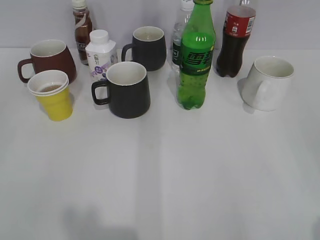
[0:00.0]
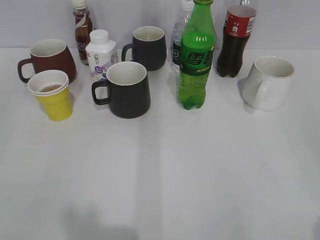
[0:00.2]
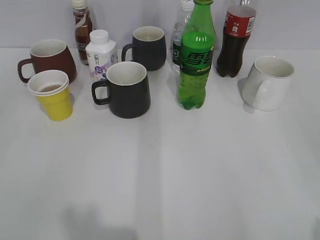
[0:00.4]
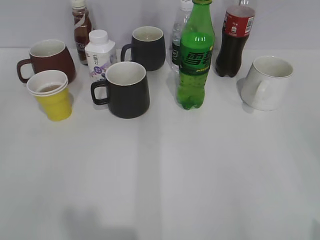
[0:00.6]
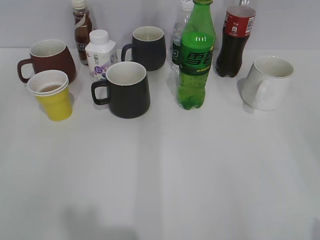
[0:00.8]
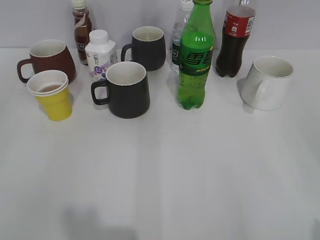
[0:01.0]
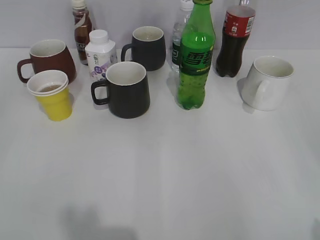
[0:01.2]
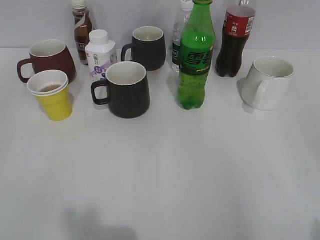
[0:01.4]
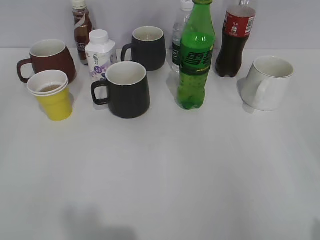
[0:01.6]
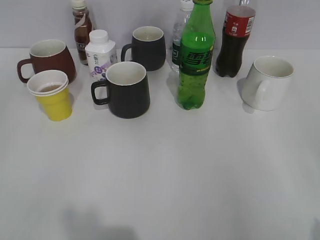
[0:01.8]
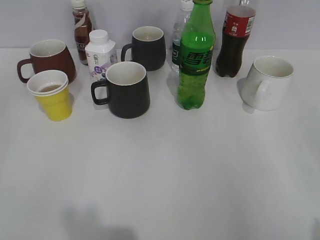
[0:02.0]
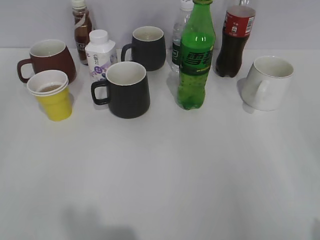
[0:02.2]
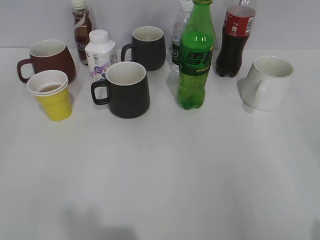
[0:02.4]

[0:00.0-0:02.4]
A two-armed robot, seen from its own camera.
0:00.0 to 0:02.4: The two grippers keep their place.
